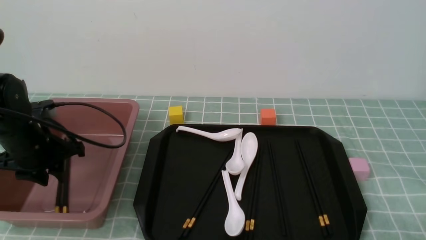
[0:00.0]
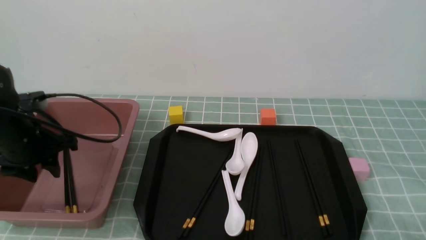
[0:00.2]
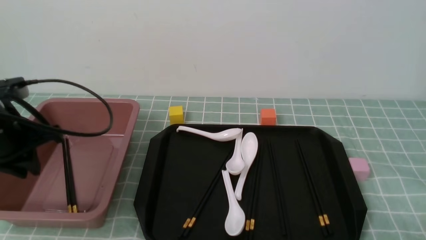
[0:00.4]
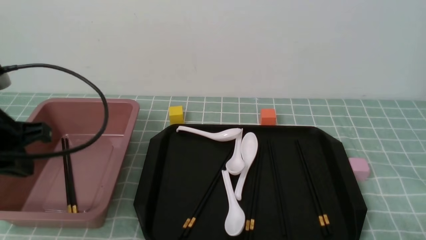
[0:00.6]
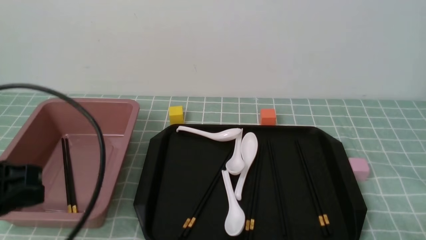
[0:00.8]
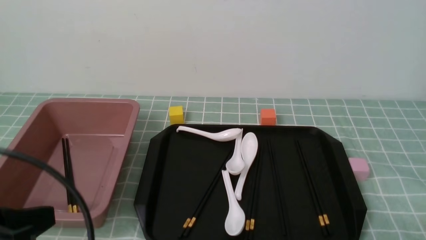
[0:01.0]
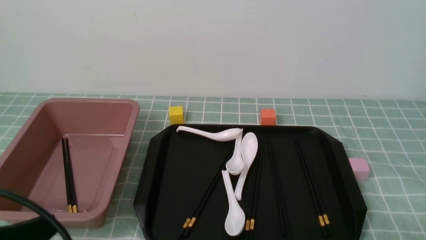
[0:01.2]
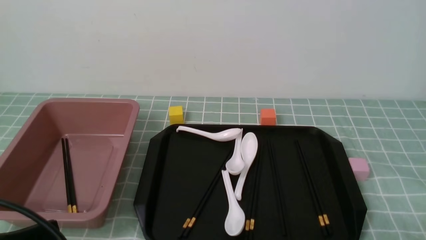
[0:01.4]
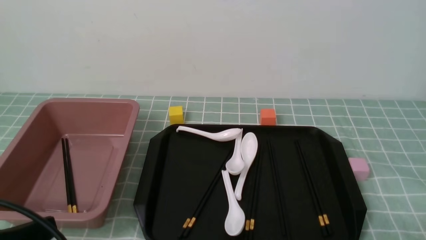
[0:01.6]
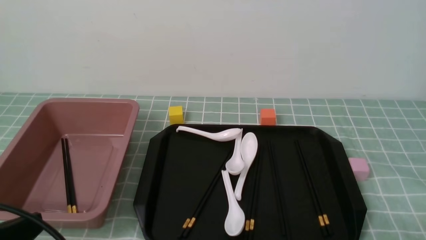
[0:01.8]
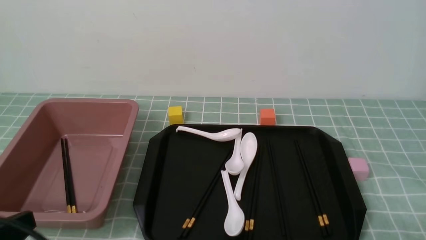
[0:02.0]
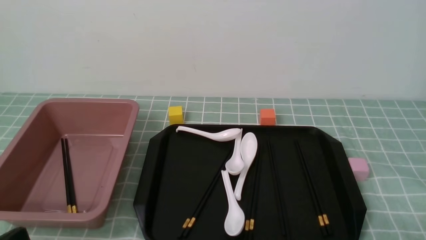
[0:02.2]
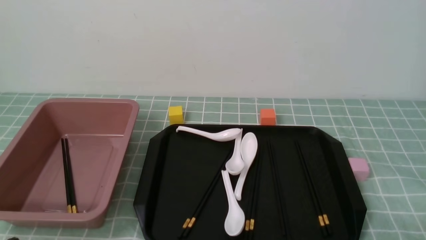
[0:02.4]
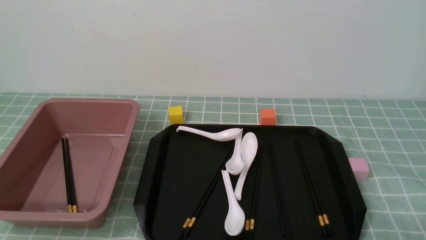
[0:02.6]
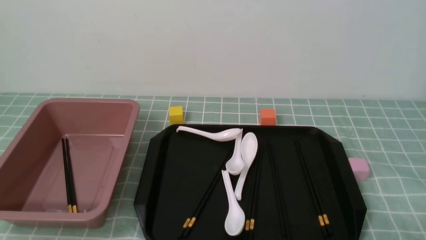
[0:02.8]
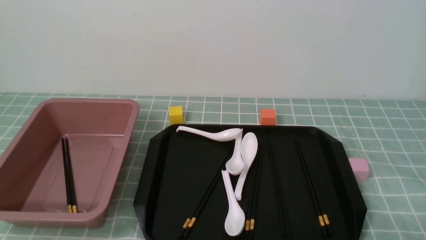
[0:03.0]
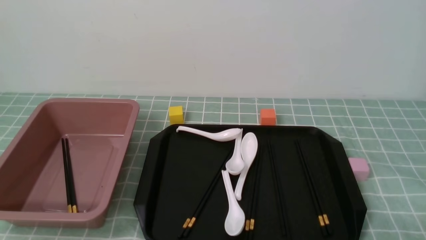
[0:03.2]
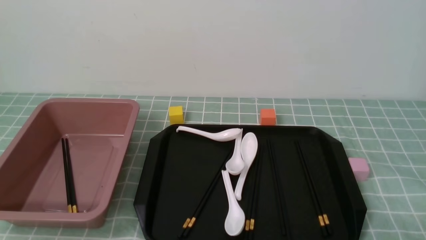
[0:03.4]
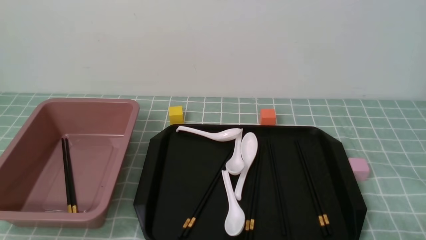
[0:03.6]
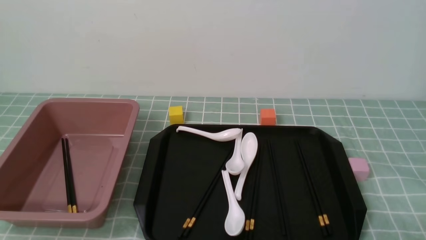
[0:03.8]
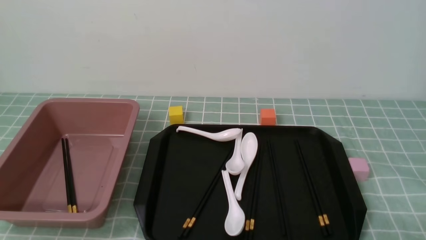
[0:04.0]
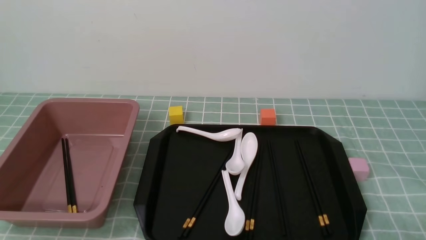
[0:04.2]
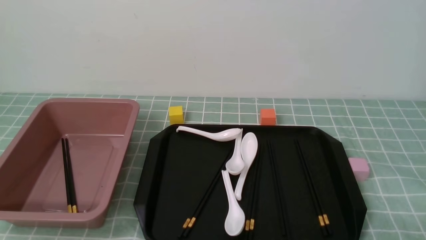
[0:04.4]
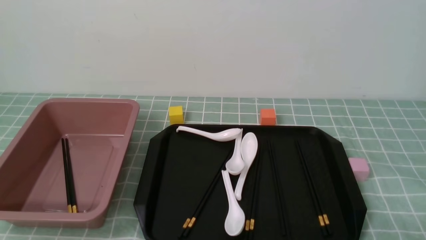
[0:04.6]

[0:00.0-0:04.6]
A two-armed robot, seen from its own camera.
0:00.0 to 0:01.6: The left gripper moves backward, approximately 25 cm, and closes.
0:01.6 to 0:03.0: The left gripper is displaced downward by roughly 10 cm.
0:03.0 to 0:04.6: The two grippers keep their place.
